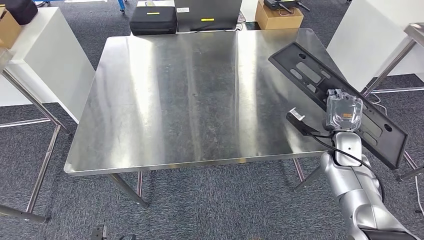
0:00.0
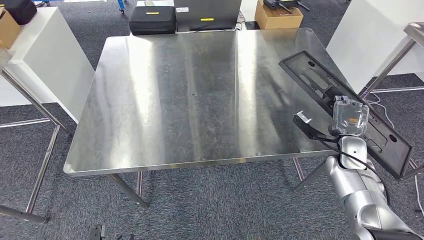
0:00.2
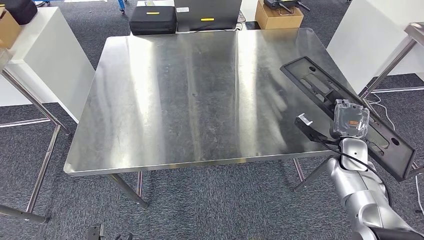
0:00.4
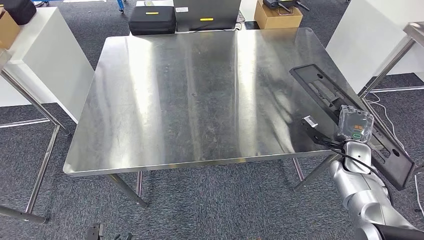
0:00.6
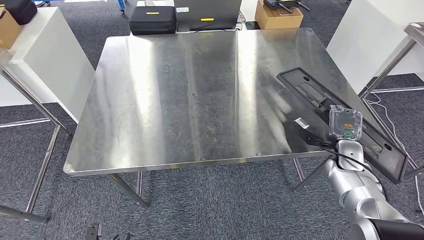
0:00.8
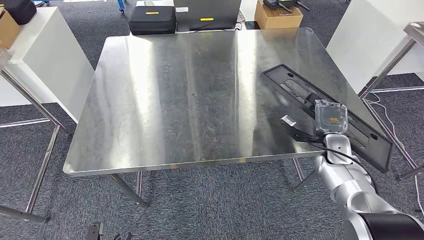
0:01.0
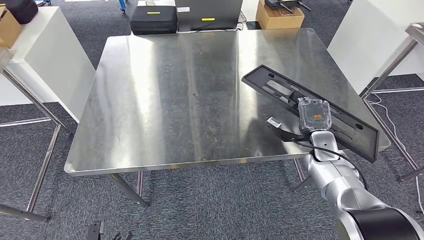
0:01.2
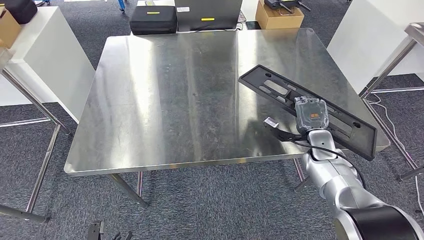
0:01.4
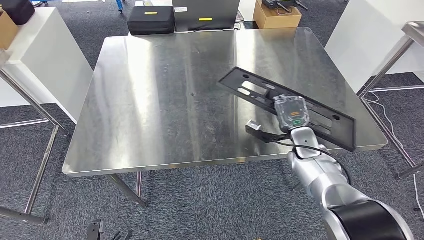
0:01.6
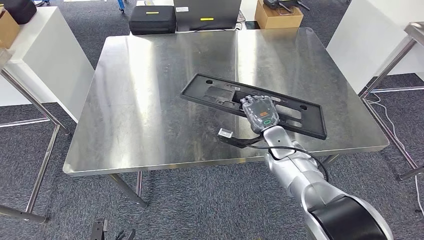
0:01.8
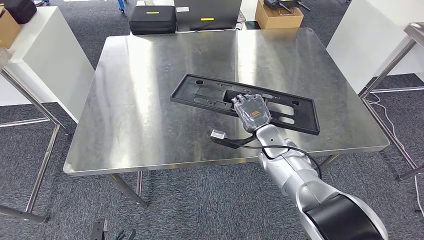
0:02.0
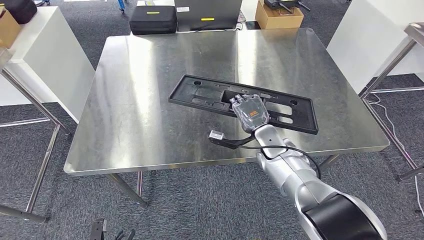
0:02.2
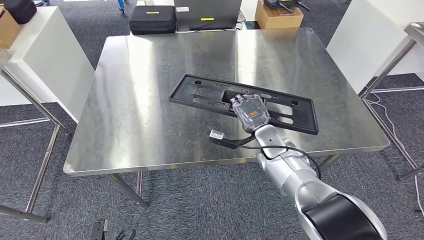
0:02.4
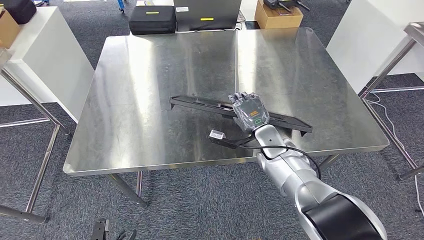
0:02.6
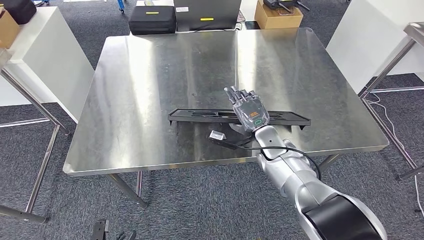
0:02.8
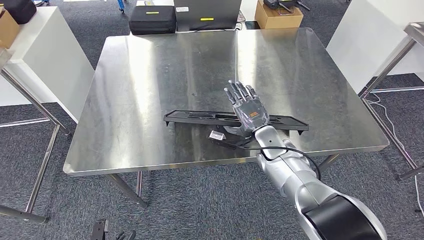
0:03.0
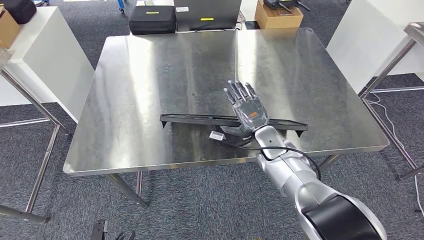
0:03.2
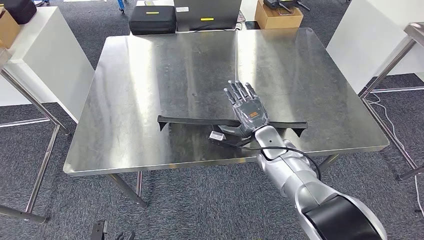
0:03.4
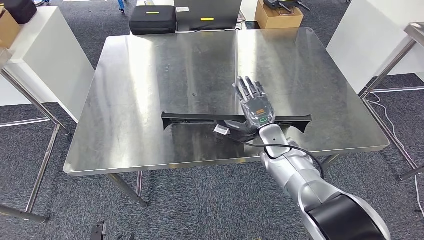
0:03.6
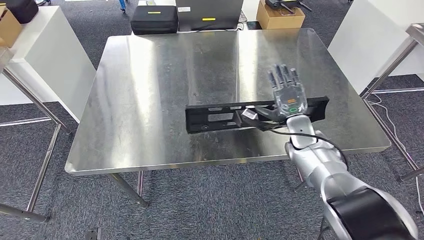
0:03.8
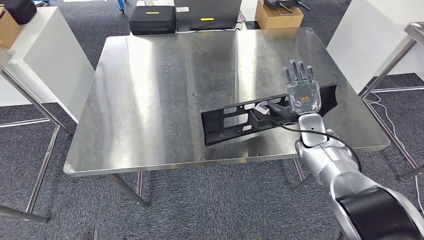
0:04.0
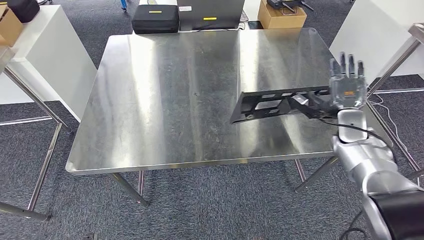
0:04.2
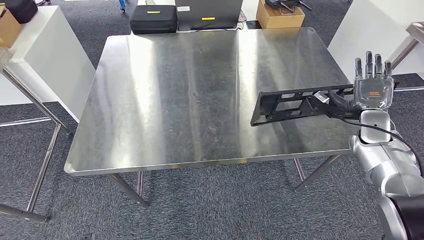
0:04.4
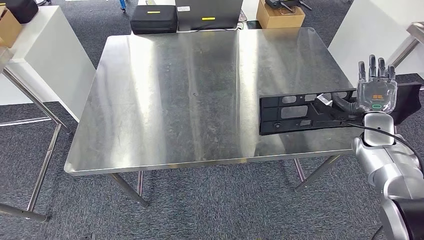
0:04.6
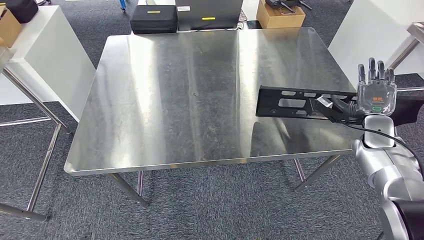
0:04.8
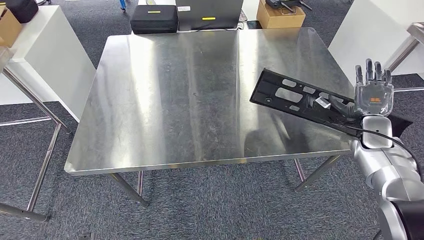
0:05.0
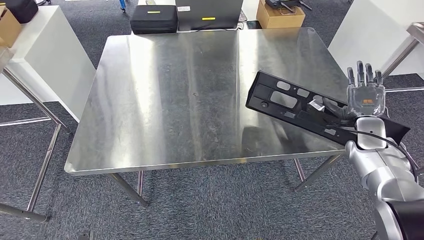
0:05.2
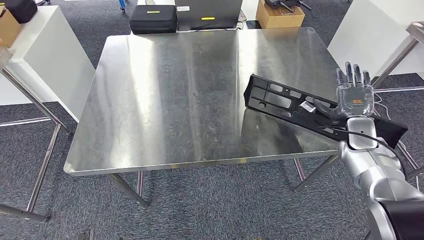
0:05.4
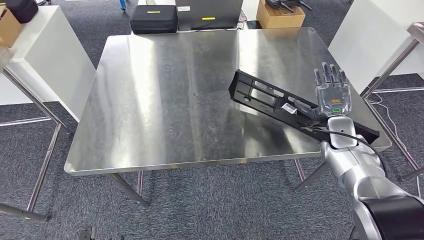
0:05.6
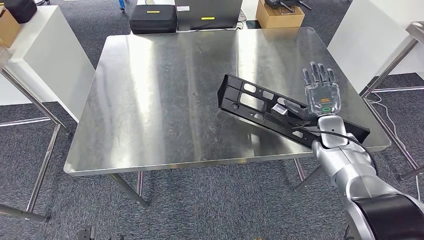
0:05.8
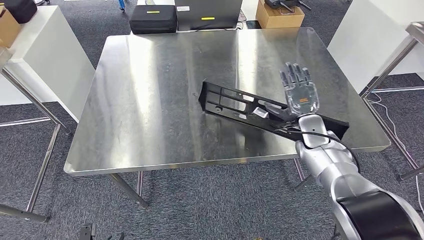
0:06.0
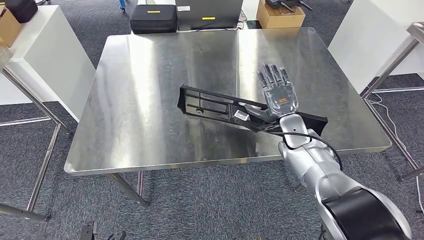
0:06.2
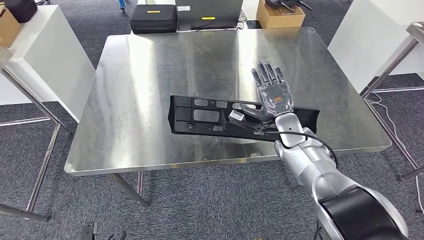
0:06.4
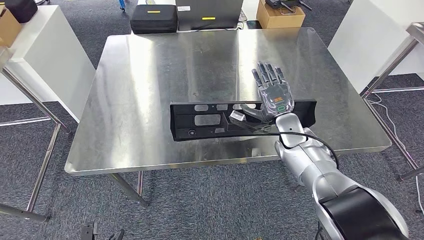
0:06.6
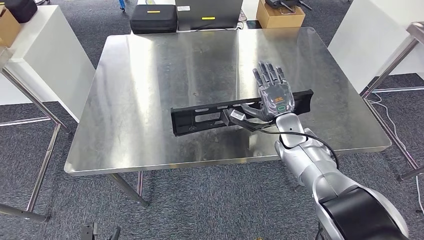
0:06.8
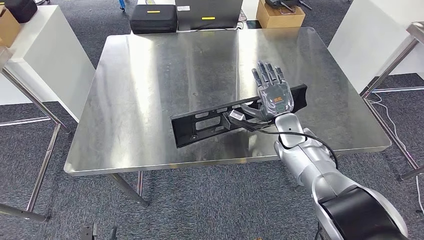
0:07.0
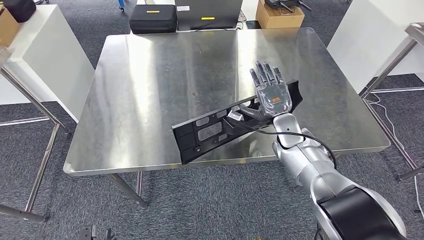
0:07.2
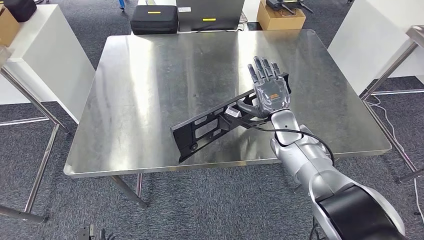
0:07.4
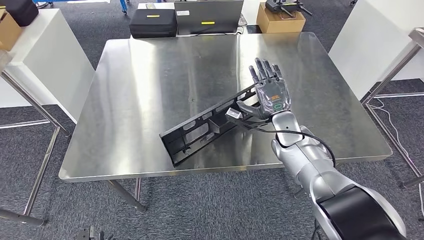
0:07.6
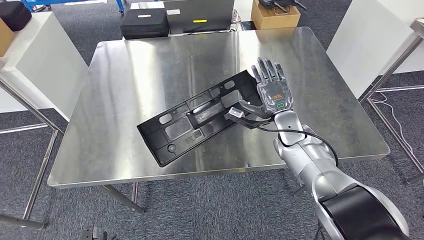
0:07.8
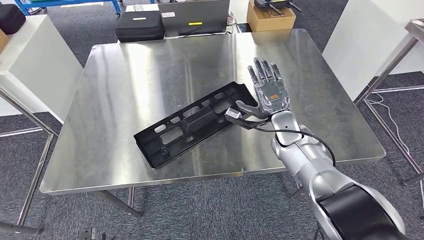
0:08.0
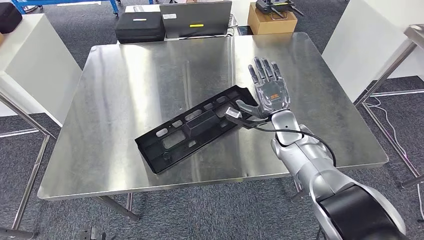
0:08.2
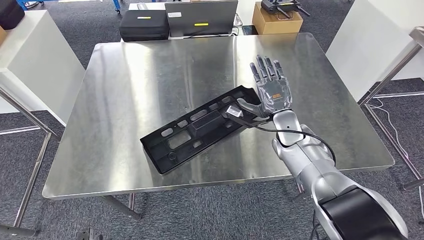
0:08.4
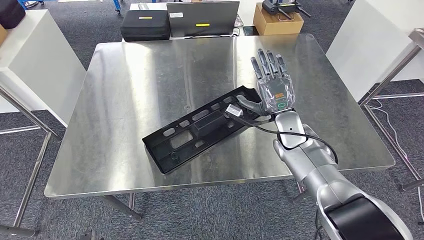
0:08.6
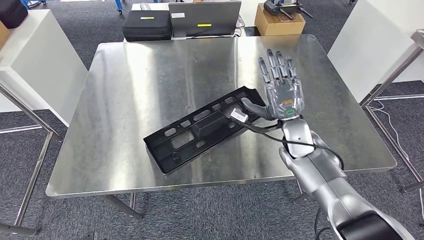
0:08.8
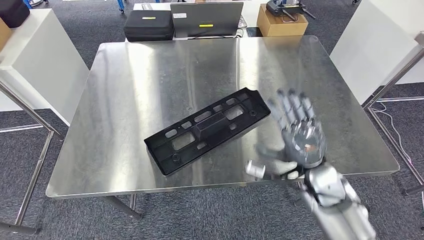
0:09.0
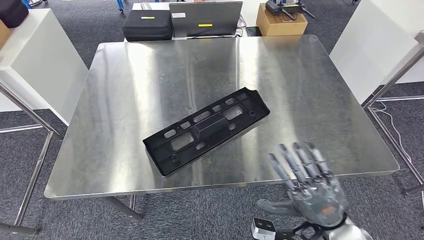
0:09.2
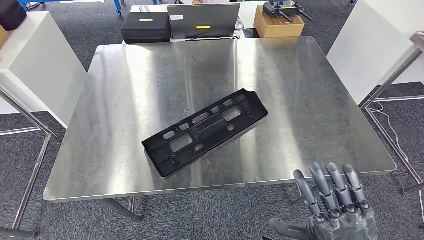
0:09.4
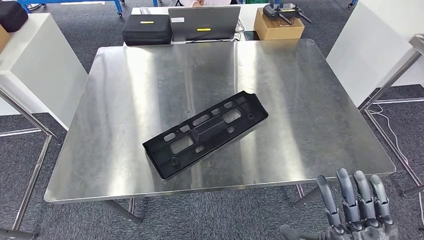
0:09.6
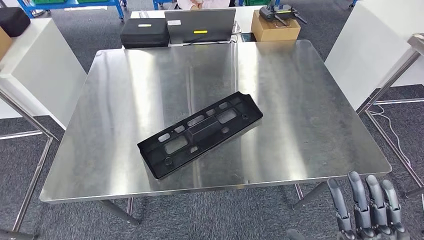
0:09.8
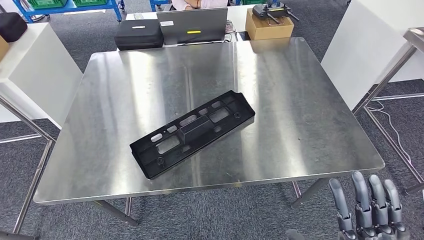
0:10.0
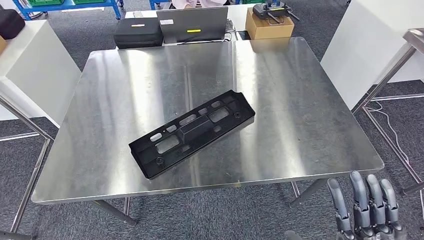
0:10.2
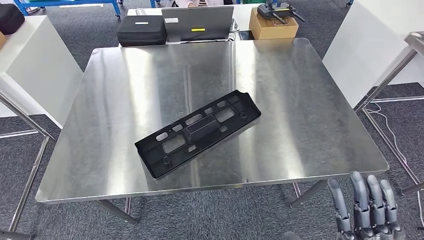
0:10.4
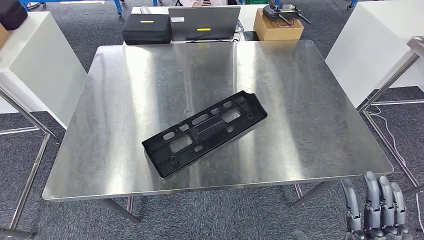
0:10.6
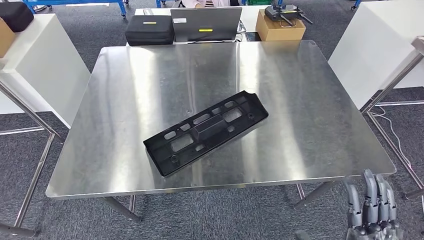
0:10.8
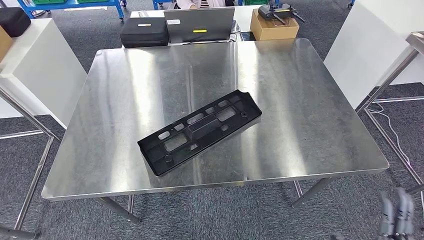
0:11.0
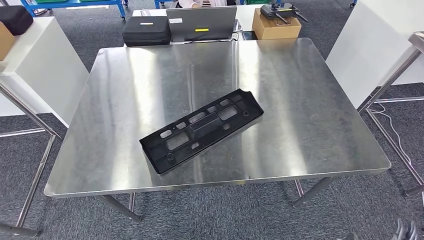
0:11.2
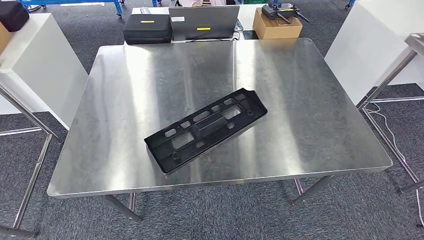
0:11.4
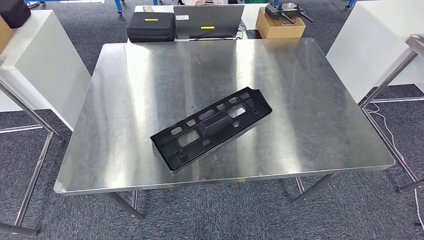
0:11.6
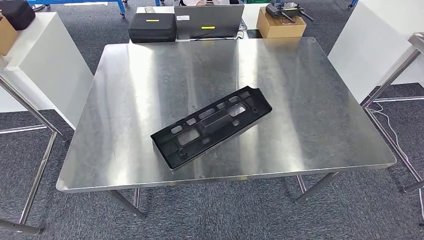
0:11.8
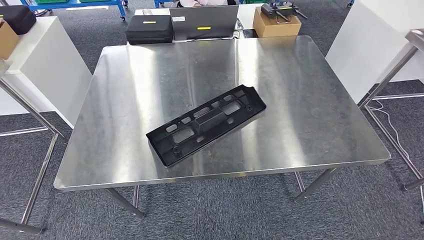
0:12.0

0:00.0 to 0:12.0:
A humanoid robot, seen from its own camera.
Step, 0:00.0 to 0:10.0: Insert the large material into the corresponding slot on the workbench.
0:01.6 to 0:03.0: The right hand travels to the left by some 10 cm.
0:04.4 to 0:06.0: The right hand goes approximately 15 cm to the left.

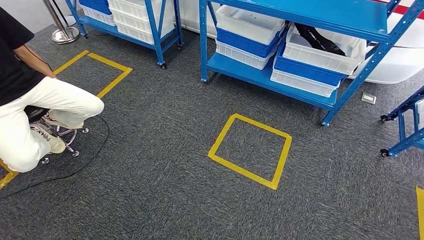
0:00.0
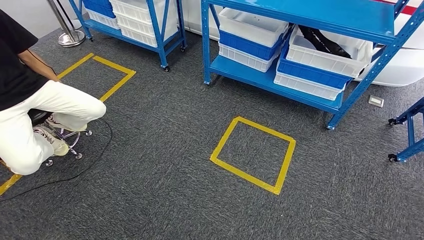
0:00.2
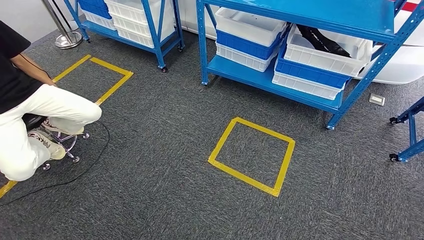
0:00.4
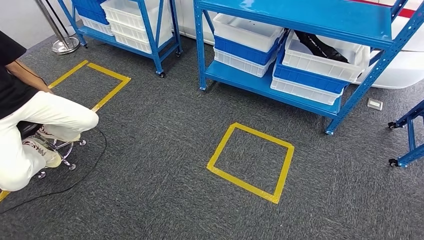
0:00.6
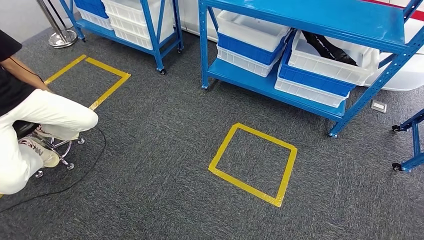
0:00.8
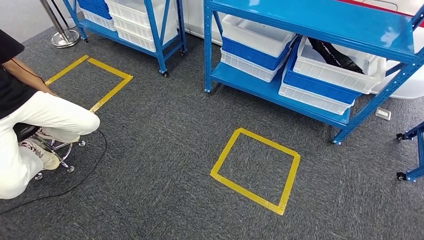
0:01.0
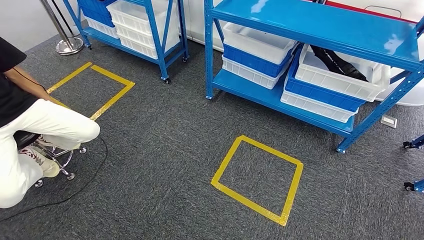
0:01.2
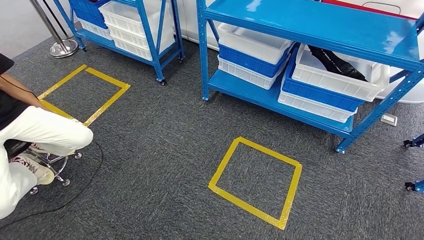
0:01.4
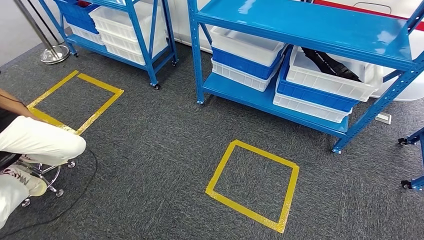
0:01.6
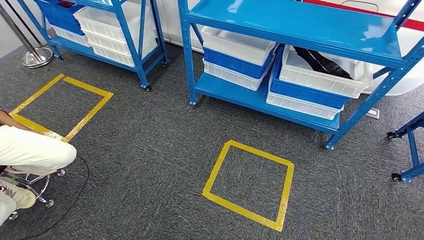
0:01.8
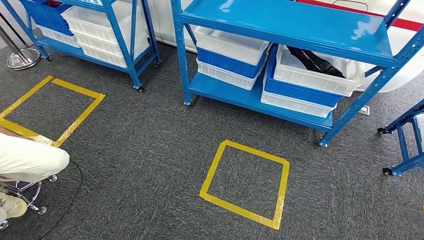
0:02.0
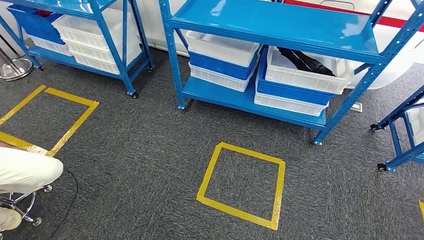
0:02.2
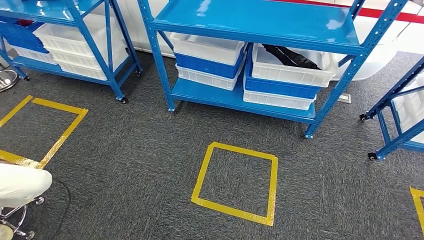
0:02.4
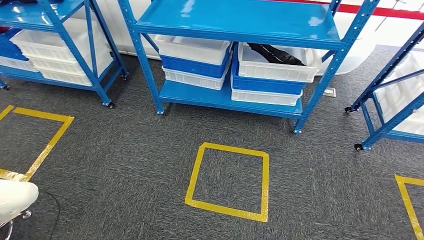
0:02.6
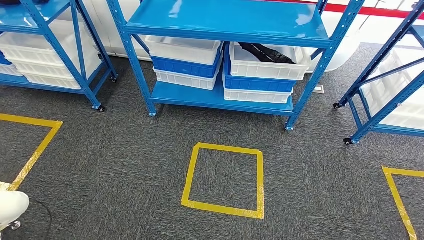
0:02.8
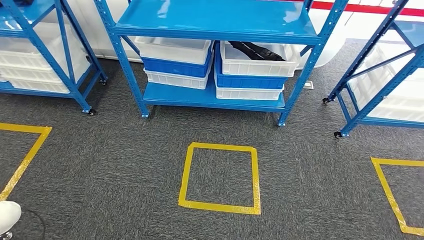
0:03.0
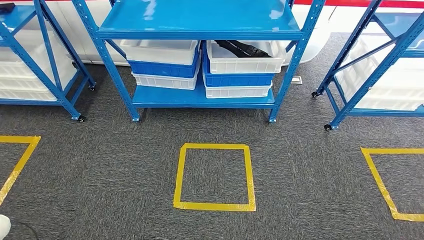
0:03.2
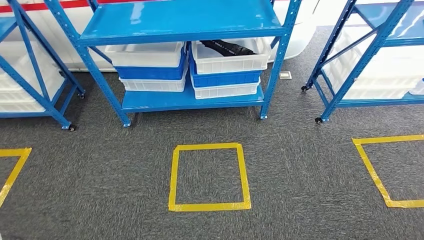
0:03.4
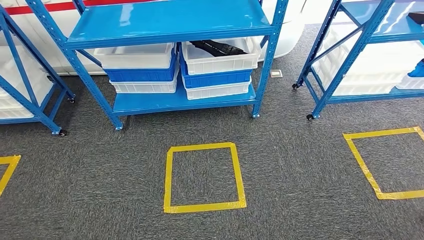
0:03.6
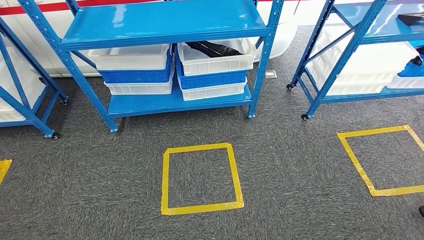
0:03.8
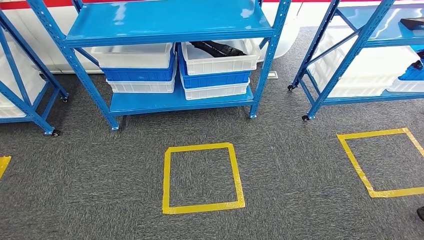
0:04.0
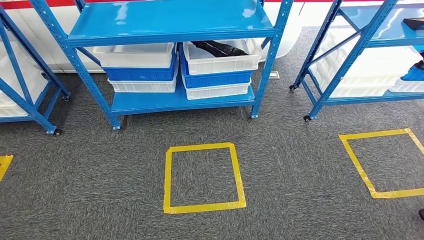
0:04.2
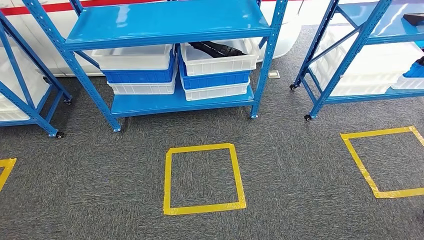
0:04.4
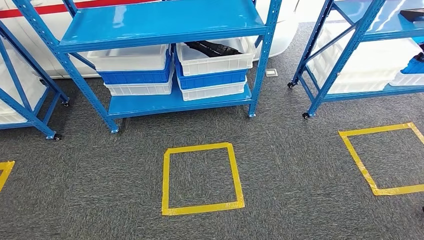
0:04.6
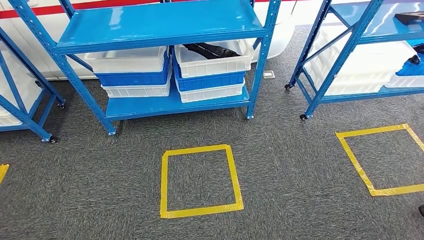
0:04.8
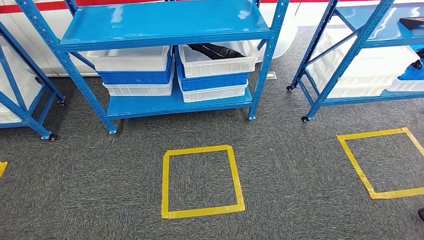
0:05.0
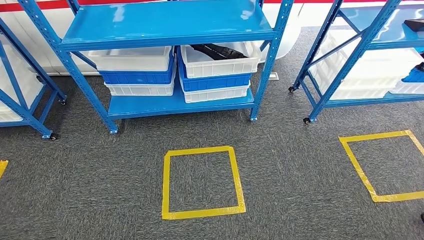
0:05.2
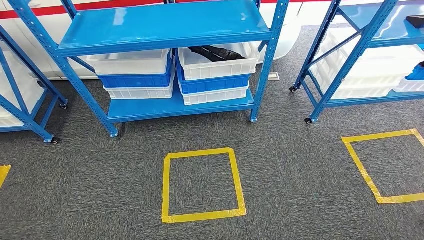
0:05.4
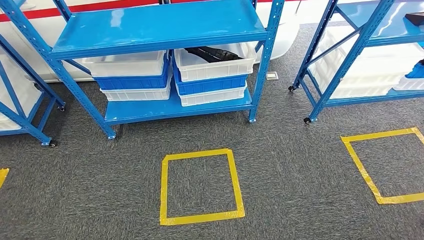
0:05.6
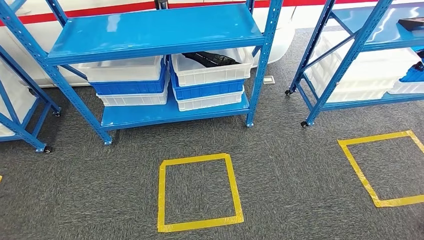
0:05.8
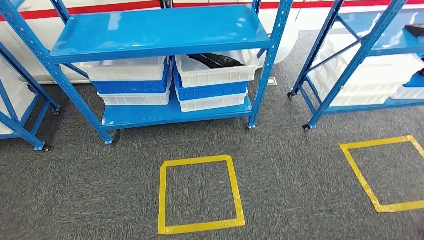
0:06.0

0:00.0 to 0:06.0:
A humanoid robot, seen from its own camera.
Step, 0:00.0 to 0:06.0: Move to the initial position of the shelf.
